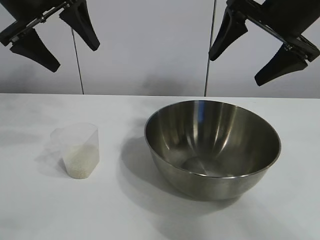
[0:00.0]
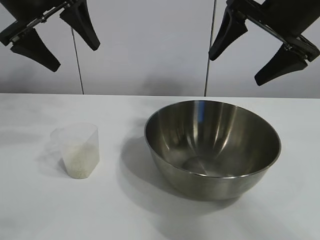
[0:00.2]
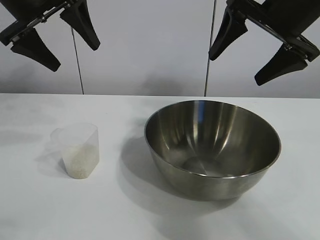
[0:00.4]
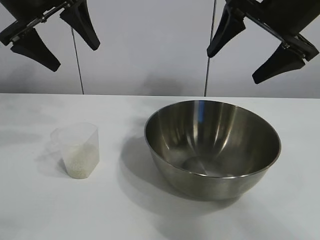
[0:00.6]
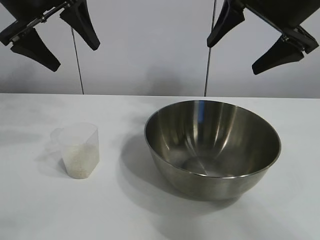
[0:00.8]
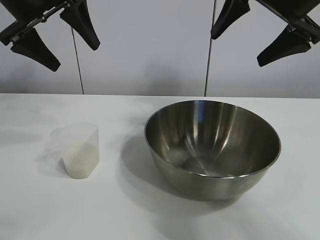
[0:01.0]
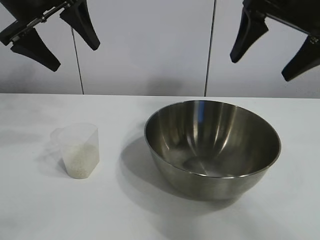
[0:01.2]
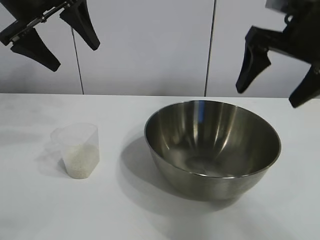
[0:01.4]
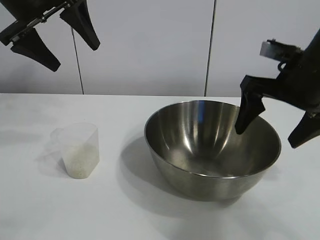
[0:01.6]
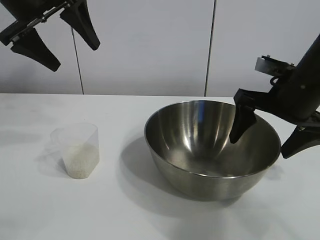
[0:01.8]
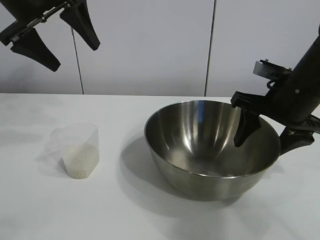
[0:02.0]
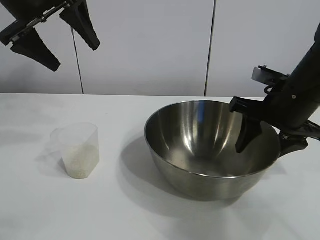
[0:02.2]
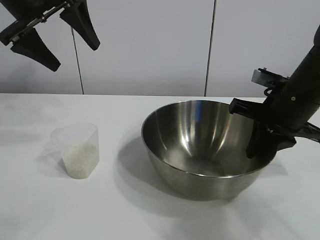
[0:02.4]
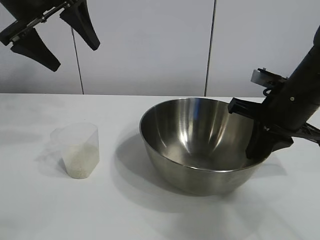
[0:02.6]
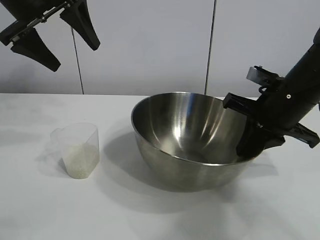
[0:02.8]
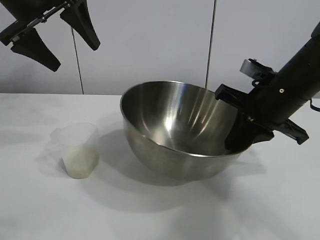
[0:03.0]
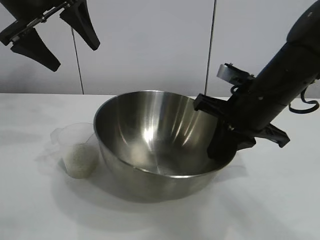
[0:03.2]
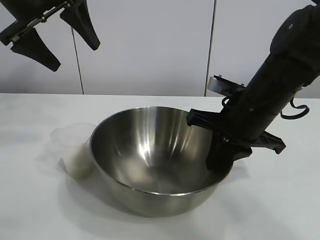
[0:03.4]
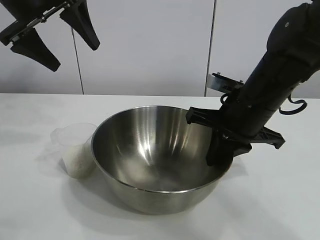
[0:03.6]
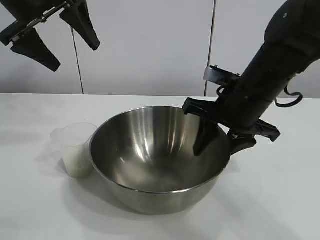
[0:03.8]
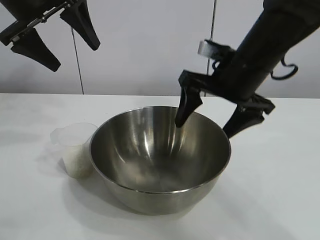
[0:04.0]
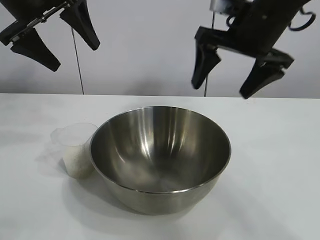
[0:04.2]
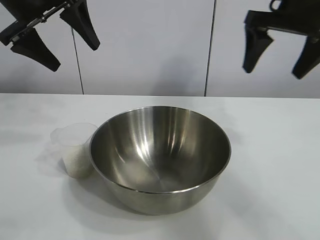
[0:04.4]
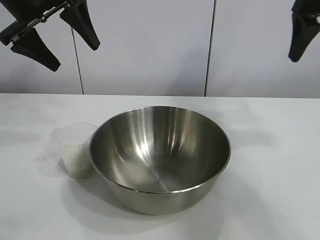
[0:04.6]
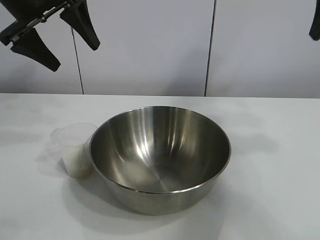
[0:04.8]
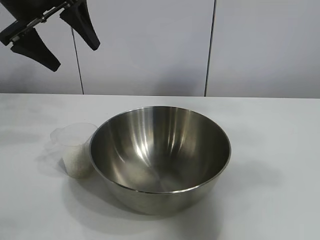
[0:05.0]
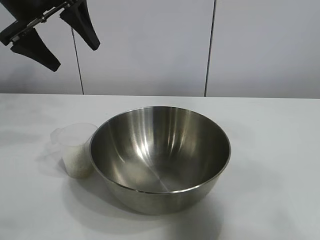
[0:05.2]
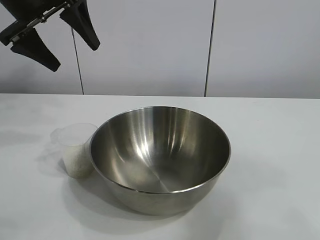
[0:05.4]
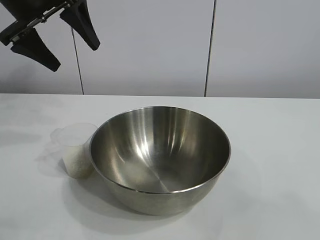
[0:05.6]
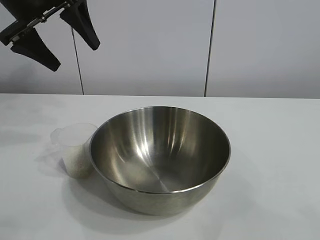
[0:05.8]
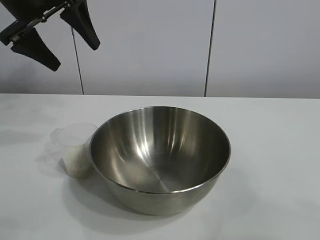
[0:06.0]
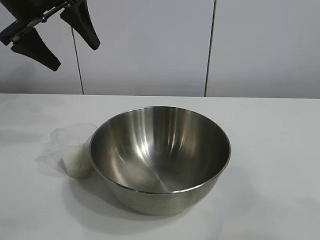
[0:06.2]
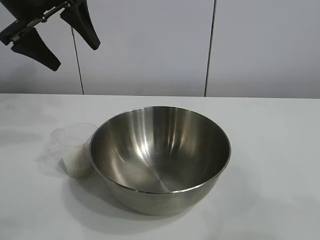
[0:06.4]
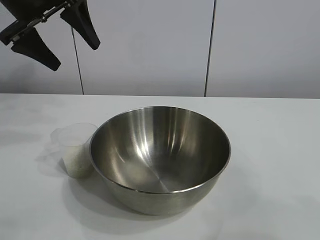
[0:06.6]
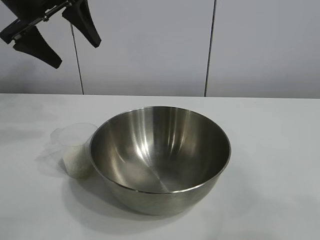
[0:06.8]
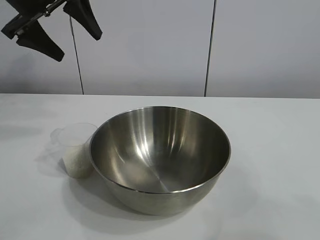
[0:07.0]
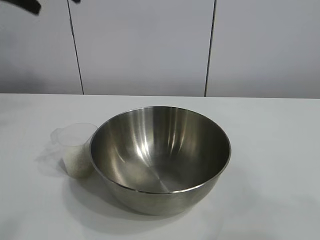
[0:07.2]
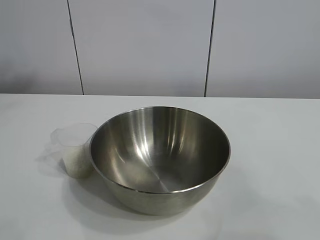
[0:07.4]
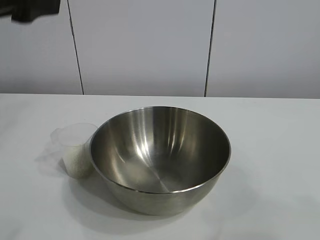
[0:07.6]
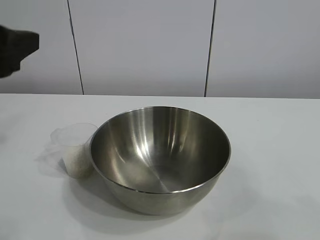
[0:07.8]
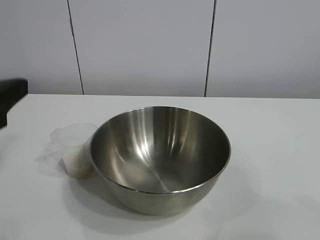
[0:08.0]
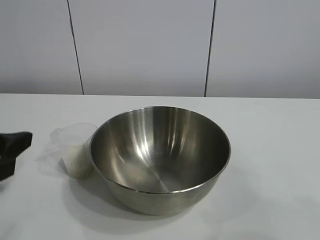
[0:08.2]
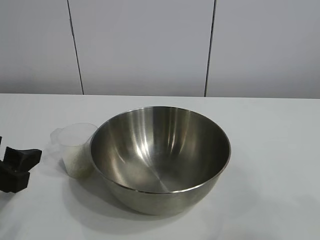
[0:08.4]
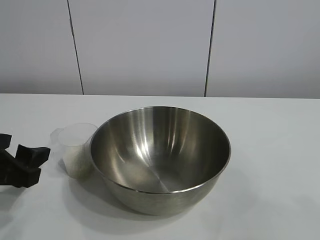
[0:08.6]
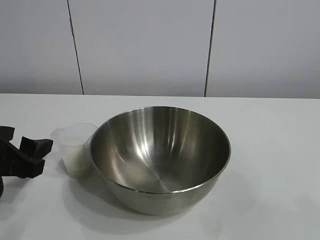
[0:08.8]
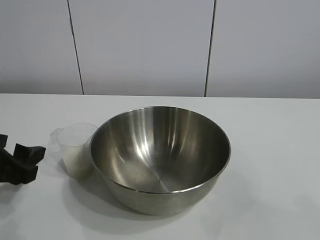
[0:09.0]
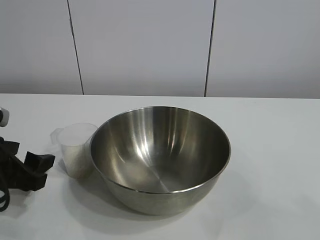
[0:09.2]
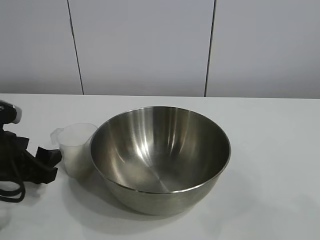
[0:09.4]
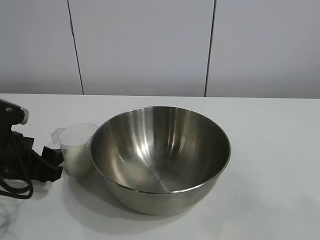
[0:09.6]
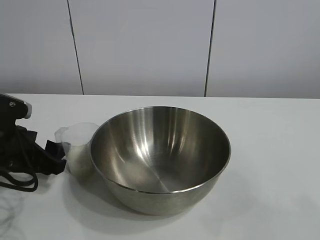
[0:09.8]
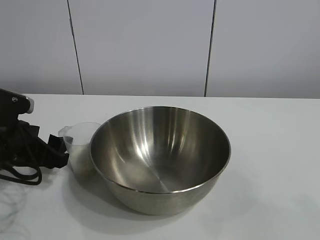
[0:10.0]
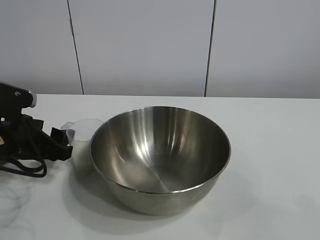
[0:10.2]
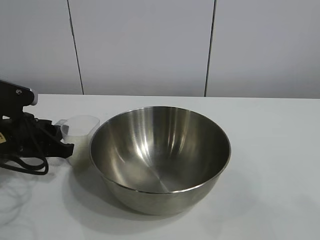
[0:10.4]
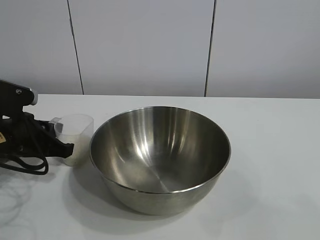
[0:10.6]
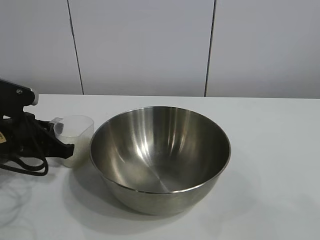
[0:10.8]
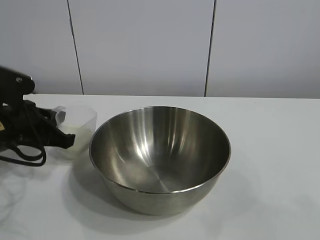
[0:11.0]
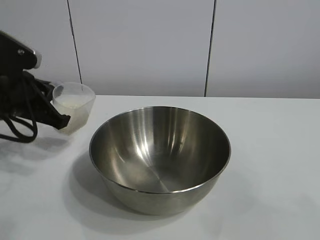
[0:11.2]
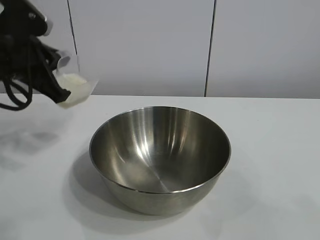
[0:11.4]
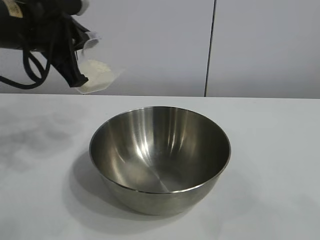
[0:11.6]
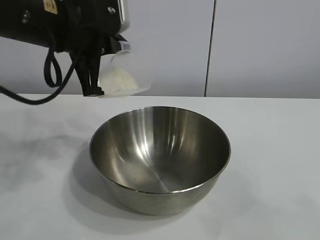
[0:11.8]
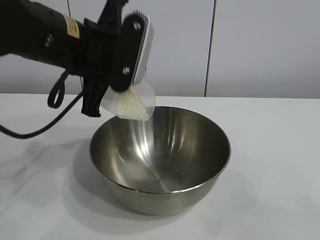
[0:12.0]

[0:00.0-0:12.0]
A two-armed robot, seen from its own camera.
Task of the whole recording: the right gripper grasp the rice container and place it in the center of the table, the left gripper grasp the rice scoop and pour the rice into the rice container.
Step, 0:00.6 to 0:03.6: Move the bowl in the center of view with right gripper.
Step, 0:04.0 to 0:10.8: Grasp the cup with rice in it with left gripper.

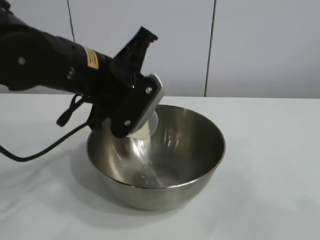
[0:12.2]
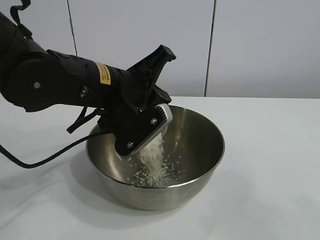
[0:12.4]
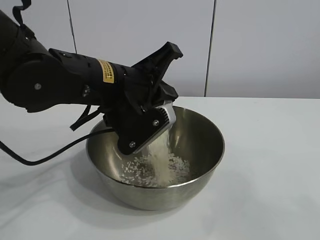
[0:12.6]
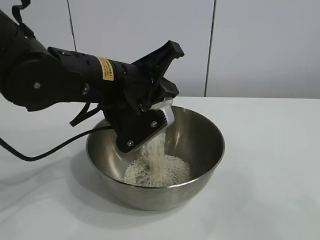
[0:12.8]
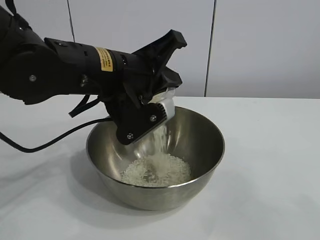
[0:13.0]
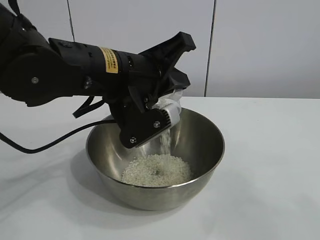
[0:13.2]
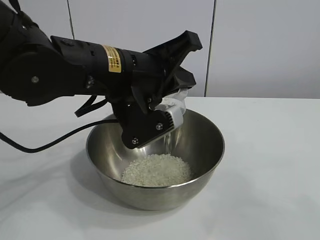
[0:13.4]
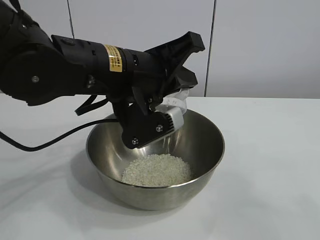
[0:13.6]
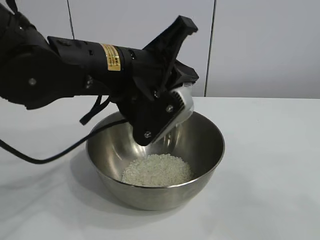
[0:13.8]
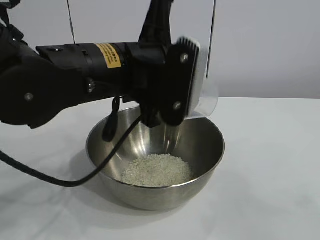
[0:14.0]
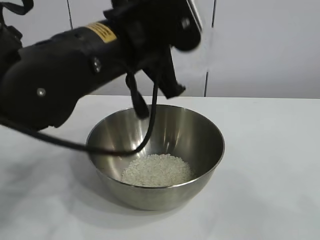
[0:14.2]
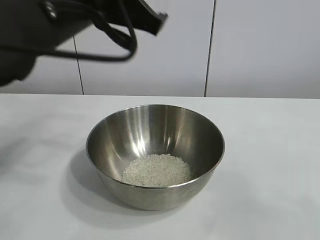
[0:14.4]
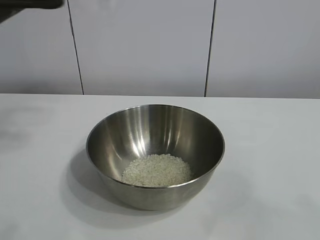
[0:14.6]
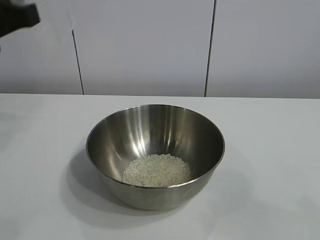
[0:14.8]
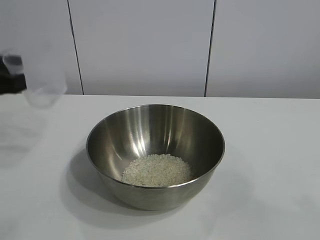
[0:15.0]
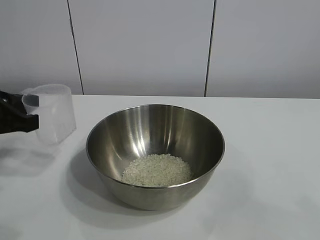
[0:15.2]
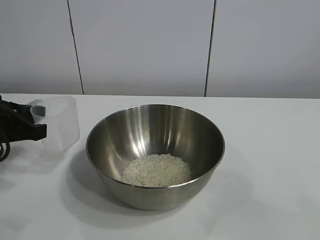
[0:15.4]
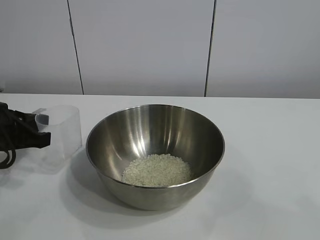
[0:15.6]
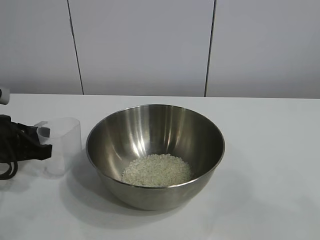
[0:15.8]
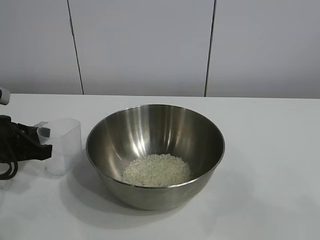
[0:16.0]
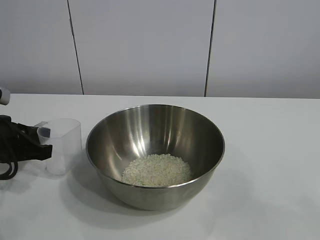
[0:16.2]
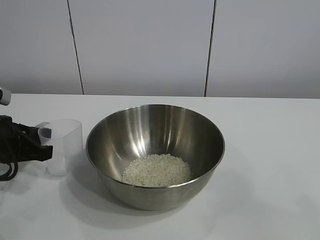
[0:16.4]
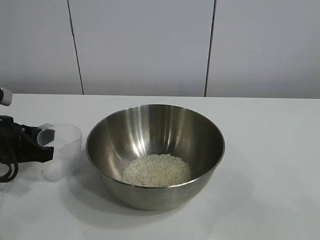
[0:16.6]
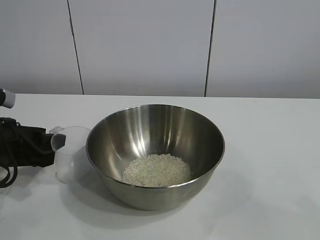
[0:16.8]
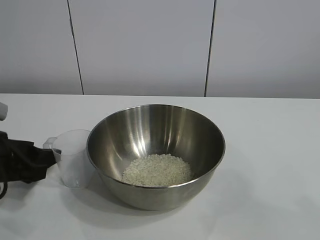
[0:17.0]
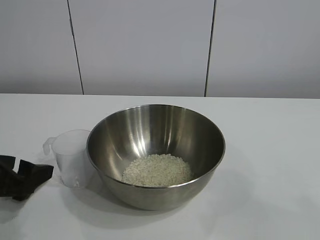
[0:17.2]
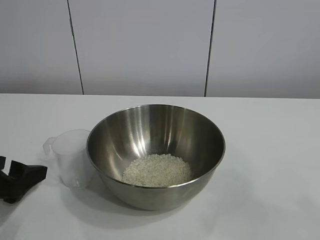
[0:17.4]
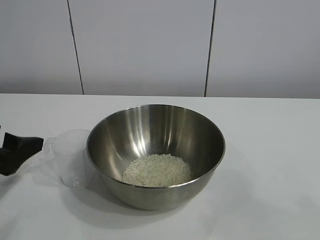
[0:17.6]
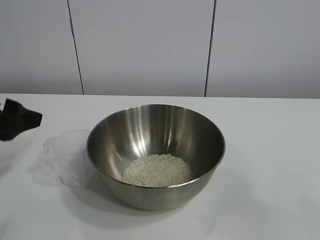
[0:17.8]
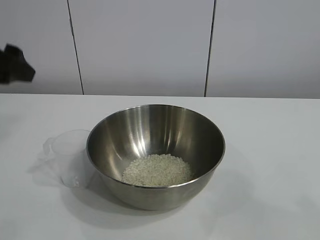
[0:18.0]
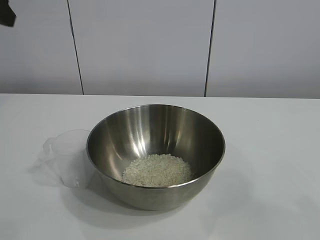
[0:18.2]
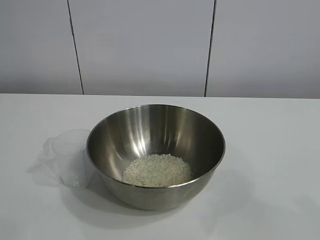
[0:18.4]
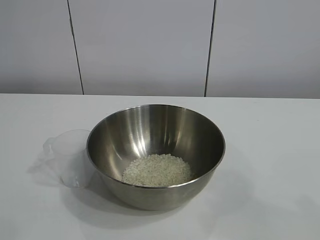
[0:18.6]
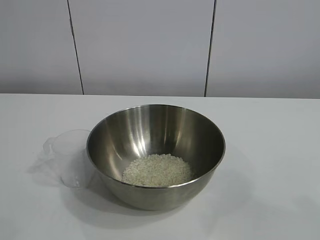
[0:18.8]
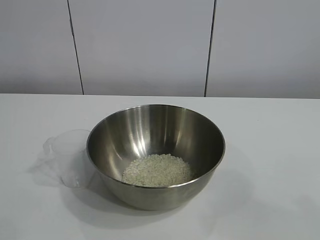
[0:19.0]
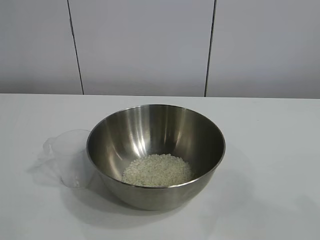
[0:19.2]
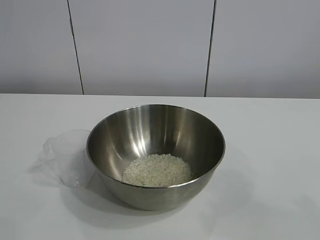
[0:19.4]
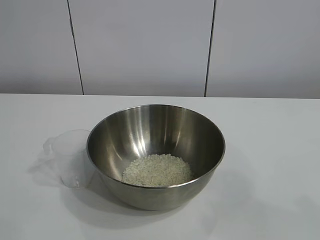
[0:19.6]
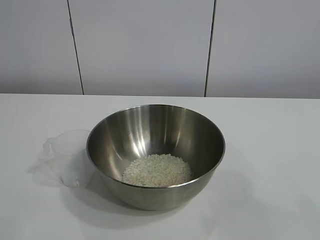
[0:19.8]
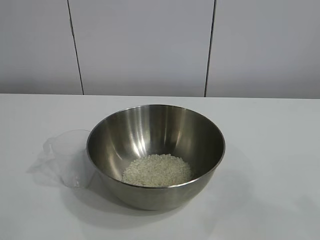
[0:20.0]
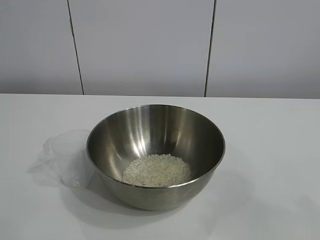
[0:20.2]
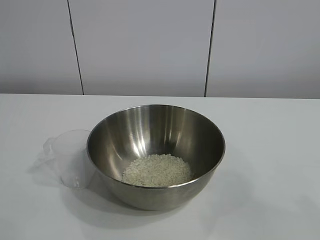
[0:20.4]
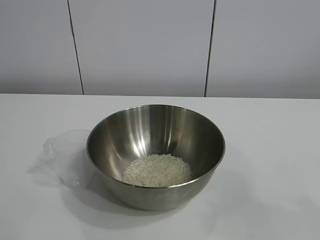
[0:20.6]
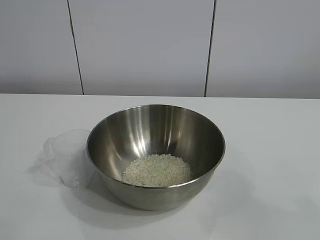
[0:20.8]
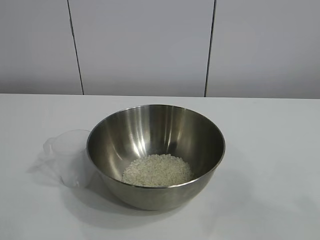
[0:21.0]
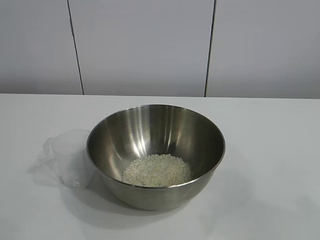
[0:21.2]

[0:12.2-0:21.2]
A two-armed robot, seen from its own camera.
Task of the whole recording: the right gripper grasp the rice container and place it in the center of the table, the left gripper grasp the rice scoop and pour the rice into the rice container.
Step, 0:12.2 to 0:13.6: Pour the rice from the cup into the bowl with the left gripper.
Step, 0:13.8 to 0:17.0: Place the cup on the table with the left gripper.

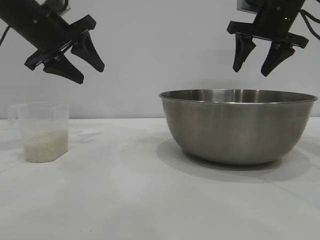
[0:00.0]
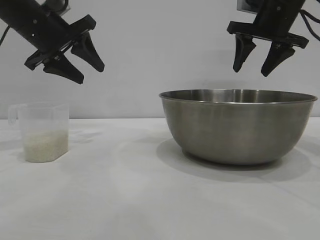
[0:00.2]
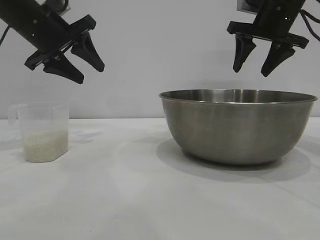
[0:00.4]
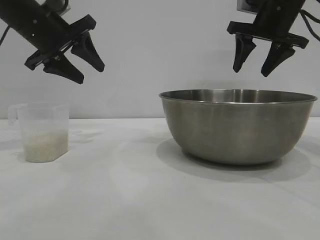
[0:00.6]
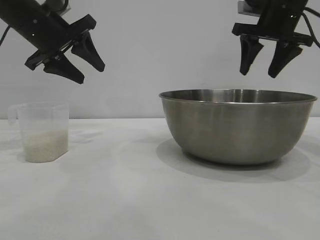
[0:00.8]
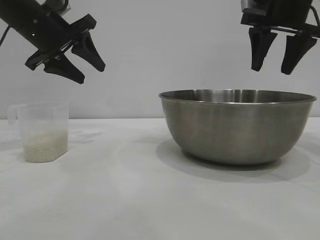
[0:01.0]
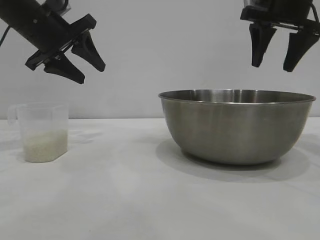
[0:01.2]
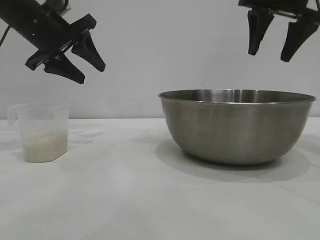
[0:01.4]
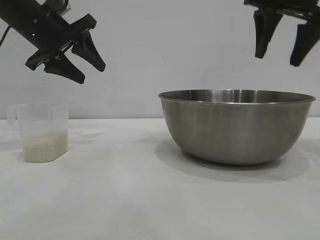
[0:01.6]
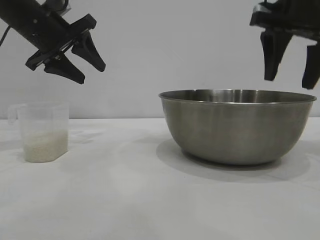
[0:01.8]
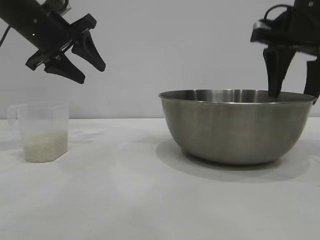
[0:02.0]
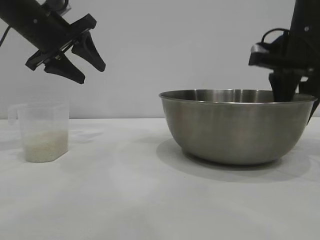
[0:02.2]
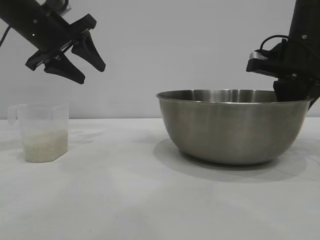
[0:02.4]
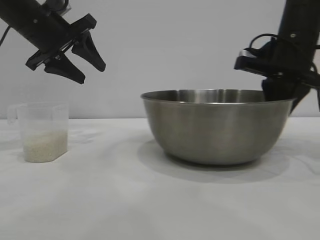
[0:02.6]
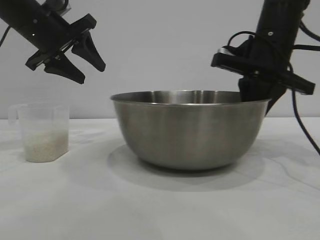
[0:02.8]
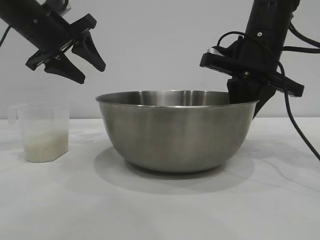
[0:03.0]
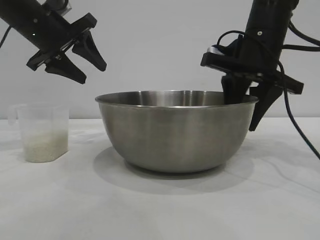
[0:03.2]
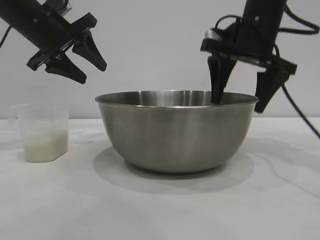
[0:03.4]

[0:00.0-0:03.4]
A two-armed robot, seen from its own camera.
Task of the whole recording: the right gripper grasp the rice container and place it in the center of the table, the left gripper grasp the rice scoop and pour the rice into the rice container.
Step, 0:00.0 to 0:03.4: Move the bowl to the center of view with the right gripper.
